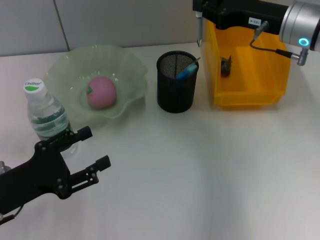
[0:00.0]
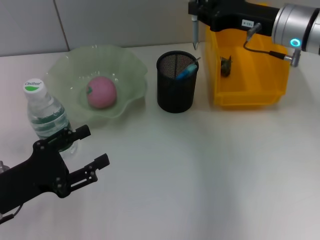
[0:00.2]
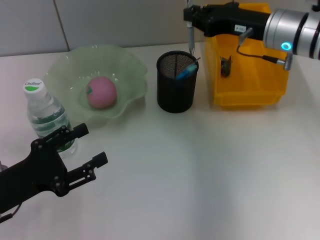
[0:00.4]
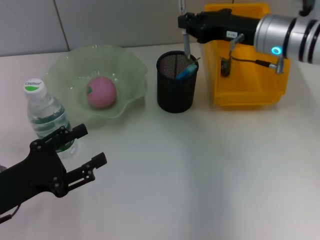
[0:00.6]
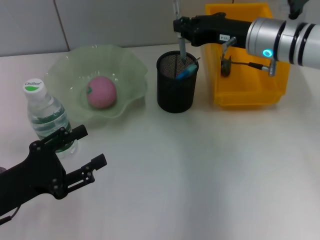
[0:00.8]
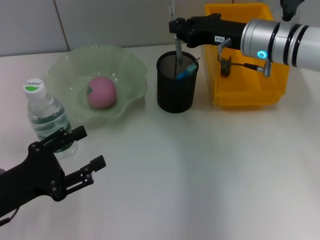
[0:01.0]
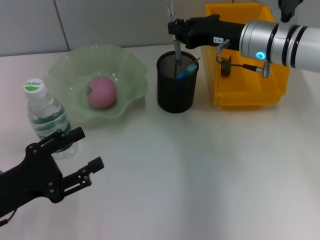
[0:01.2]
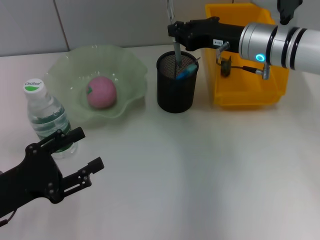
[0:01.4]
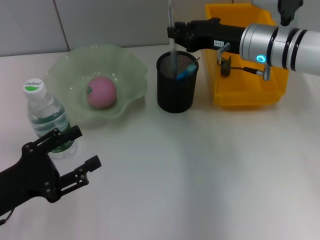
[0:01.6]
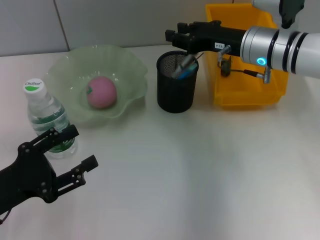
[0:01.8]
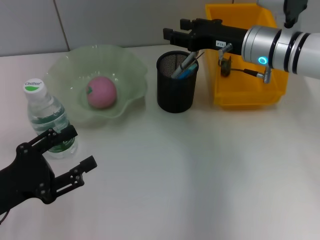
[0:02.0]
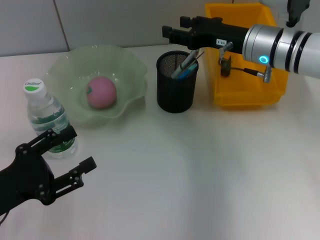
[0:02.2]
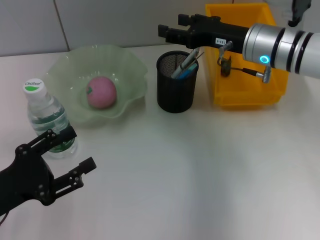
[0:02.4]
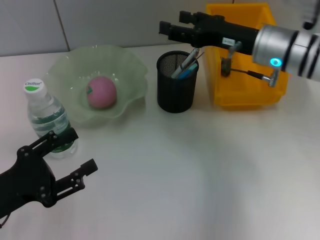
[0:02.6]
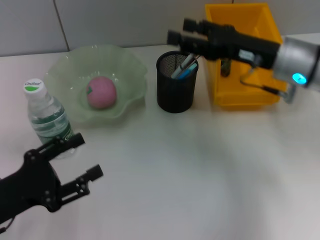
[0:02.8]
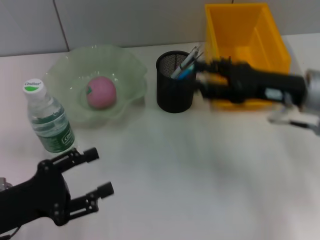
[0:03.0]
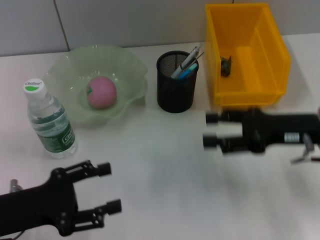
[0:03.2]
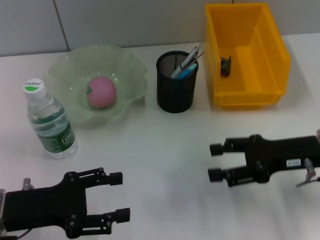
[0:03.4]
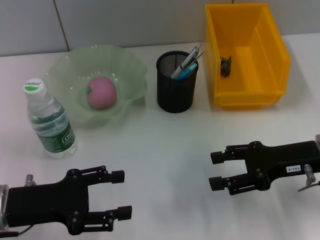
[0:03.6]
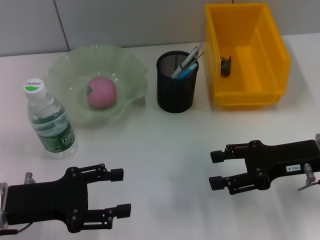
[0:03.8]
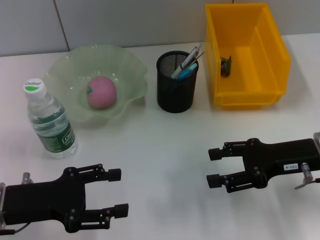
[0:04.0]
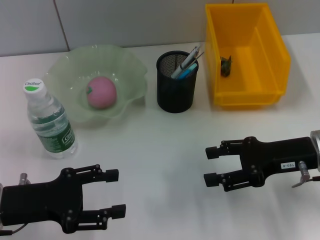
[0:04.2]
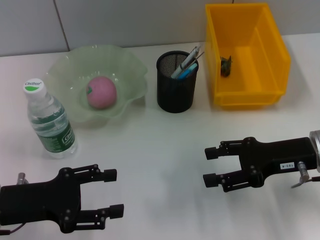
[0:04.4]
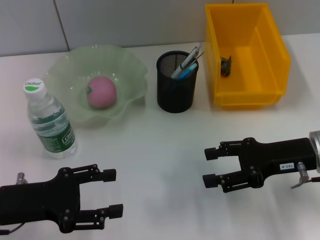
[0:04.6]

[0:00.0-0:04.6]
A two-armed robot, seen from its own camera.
0.0 to 1.6 s: The right gripper moves approximately 5 cm.
1.6 to 3.0 s: The right gripper heads backward and to the right, covering approximately 10 cm, and opens its fingers.
3.0 to 4.6 s: The right gripper shifts by roughly 5 cm.

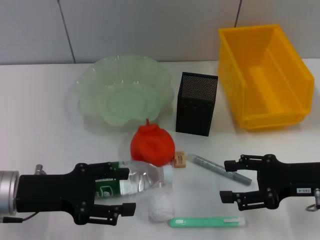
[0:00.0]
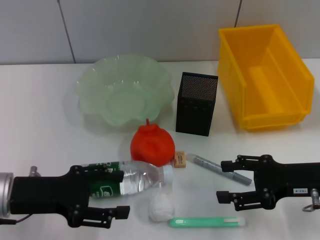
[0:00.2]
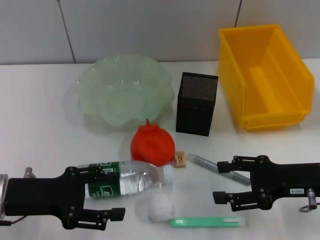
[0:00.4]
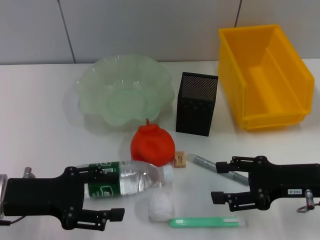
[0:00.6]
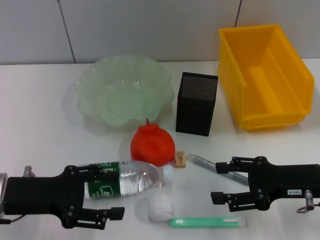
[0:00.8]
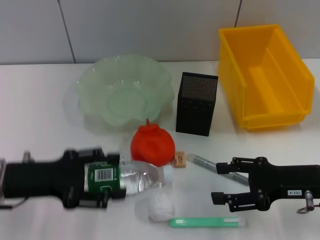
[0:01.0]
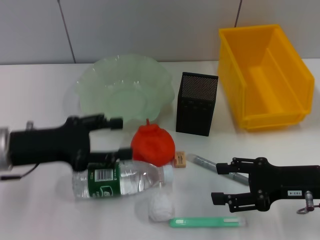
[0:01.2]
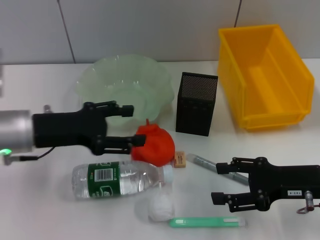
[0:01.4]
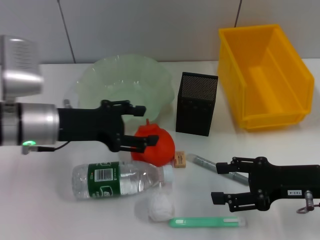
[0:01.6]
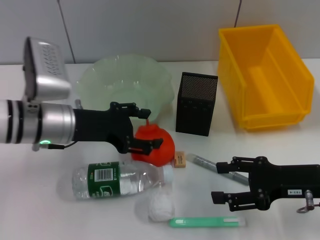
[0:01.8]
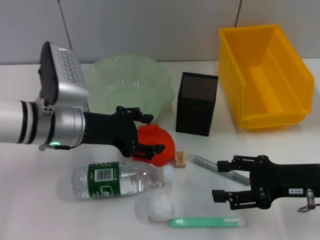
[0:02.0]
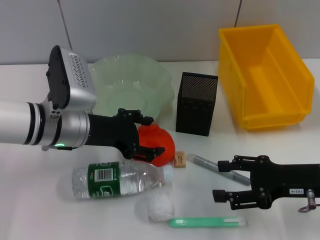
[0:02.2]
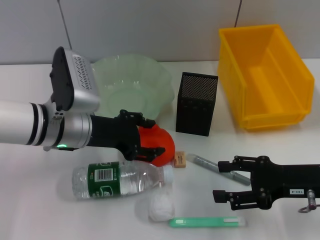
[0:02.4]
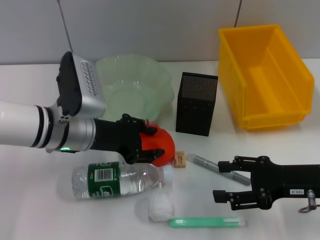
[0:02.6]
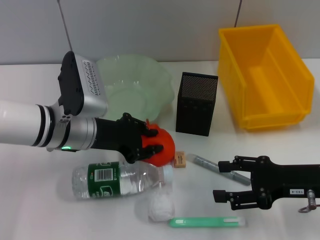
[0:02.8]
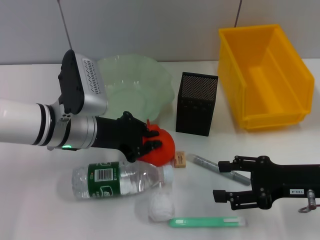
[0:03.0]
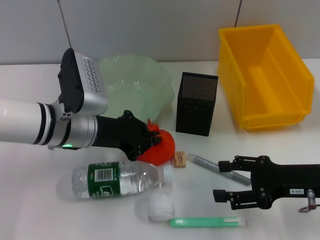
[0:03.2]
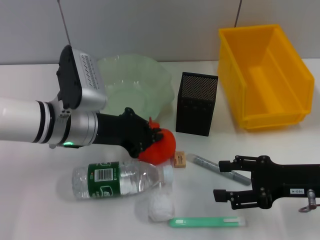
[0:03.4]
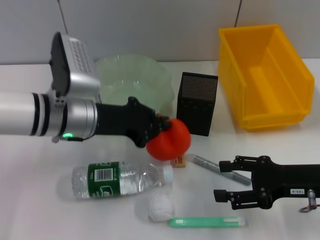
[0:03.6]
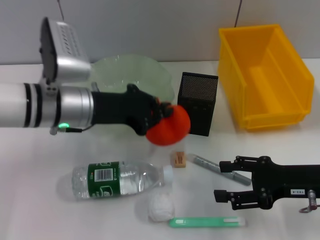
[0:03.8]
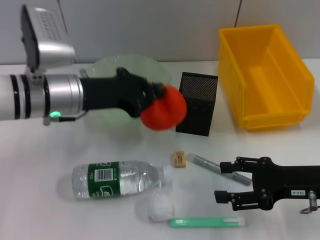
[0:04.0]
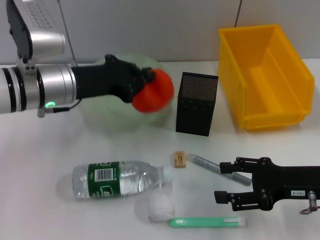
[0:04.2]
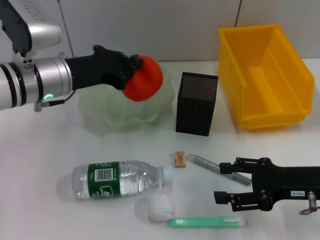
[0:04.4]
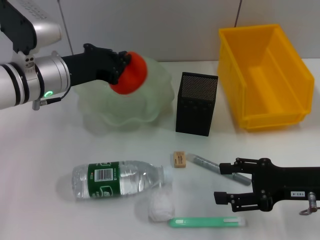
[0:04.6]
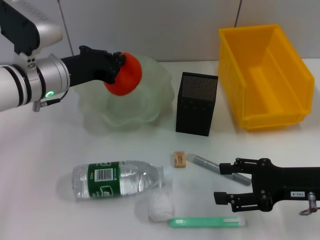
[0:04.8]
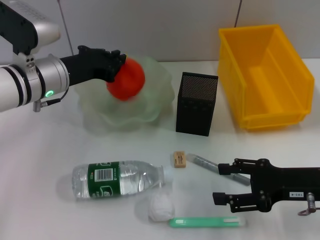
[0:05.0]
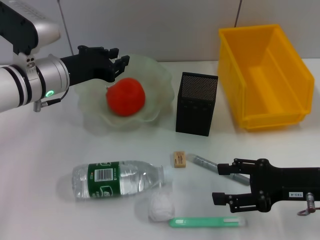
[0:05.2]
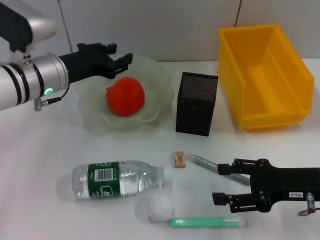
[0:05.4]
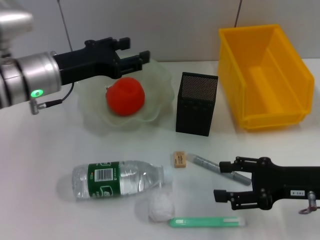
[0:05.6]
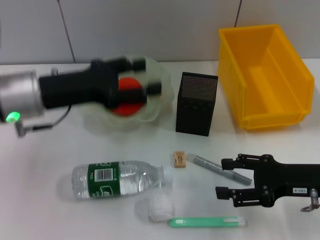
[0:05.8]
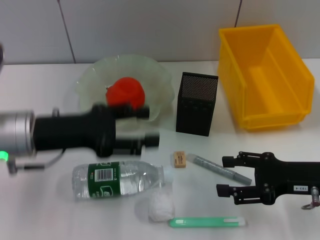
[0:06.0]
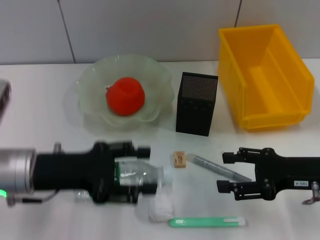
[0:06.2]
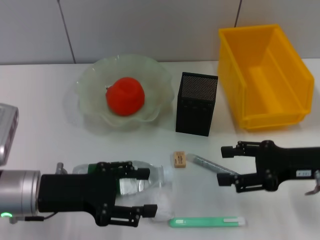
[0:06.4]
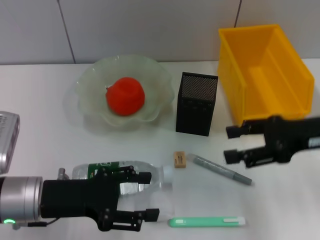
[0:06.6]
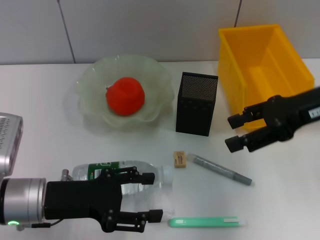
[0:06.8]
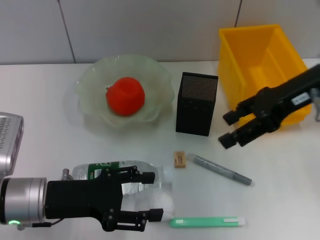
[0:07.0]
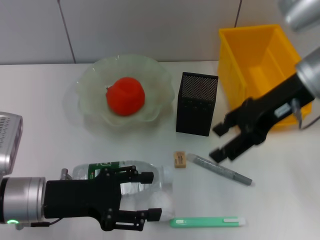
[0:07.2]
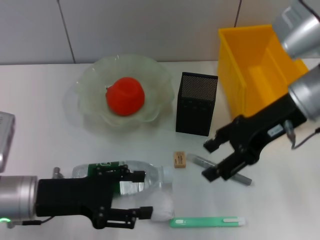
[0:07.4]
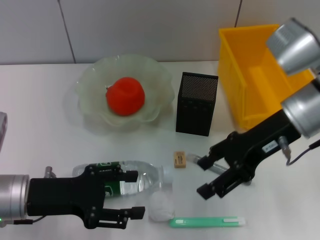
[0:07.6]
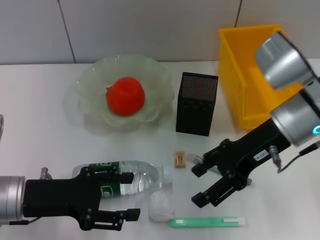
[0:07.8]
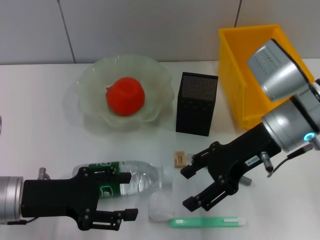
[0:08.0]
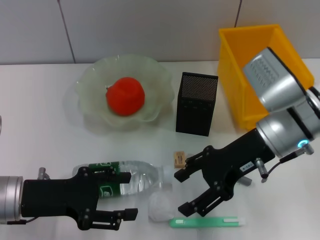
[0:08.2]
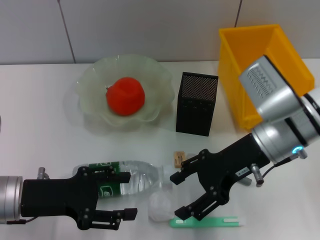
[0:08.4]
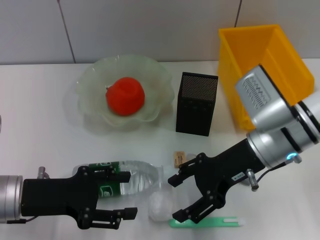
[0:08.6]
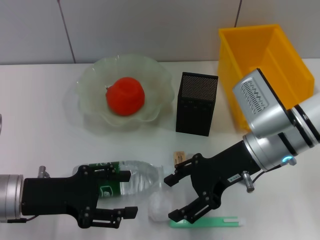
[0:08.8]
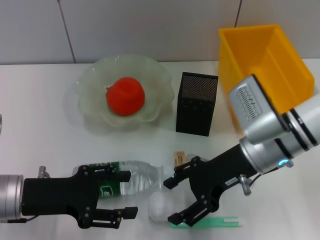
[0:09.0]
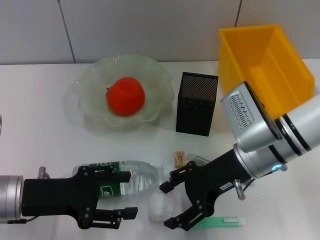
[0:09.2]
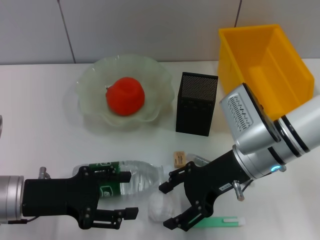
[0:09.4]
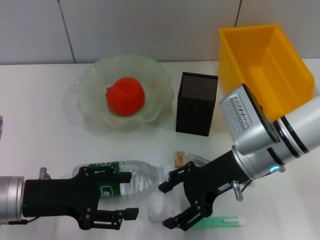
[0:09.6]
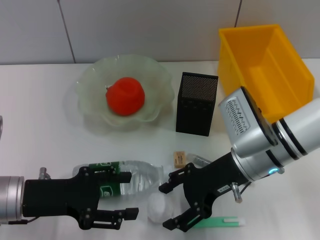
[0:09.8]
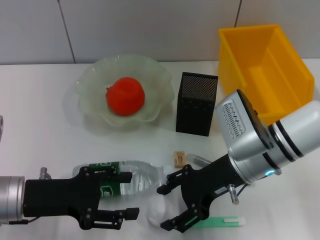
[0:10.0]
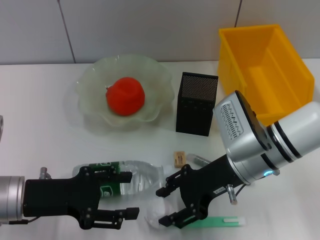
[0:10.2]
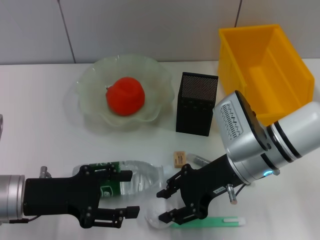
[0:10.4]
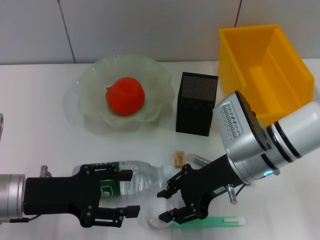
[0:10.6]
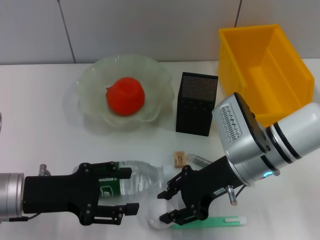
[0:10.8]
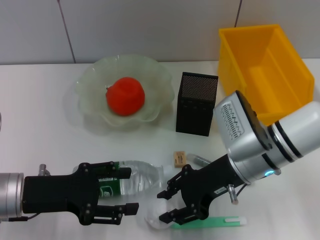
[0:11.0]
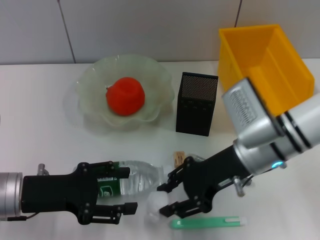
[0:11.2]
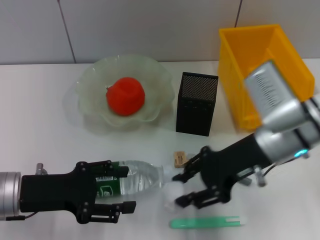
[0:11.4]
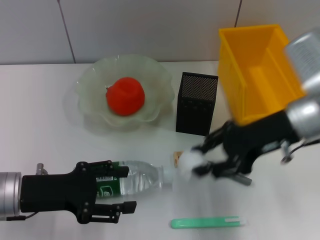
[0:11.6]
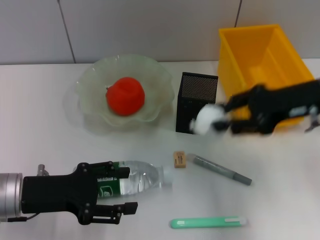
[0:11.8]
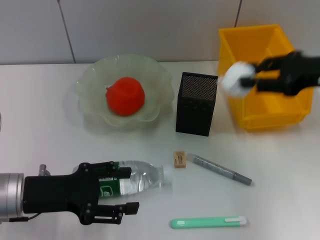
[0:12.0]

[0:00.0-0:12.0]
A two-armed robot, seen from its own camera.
Step, 0.0 to 3.0 s: Grab the orange with the left hand.
Step, 3.2 to 5.0 s: Place the orange into the fruit bowl with the left hand.
Step, 5.2 to 10.8 s: Grab the paper ball with the right hand.
0.0 to 1.6 s: The left gripper moves forward, some 10 cm.
1.6 to 3.0 s: The left gripper ends up approximately 5 cm from where it was, and closes its fingers.
3.0 to 4.4 s: The left gripper ends up roughly 5 cm from where it was, and closes.
4.4 to 6.0 s: The left gripper heads backward, covering roughly 10 cm, and opens its fingers.
6.0 to 7.6 s: The left gripper goes roughly 5 cm downward. Meanwhile the right gripper shifts roughly 15 cm upward, to the left and forward.
7.6 to 9.0 s: The right gripper moves downward, roughly 5 cm.
9.0 to 10.4 s: The grippers move only a little.
10.4 to 12.0 s: The right gripper shifts approximately 20 cm to the right and upward.

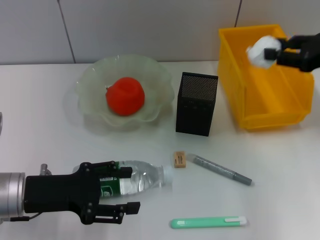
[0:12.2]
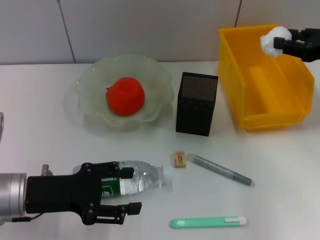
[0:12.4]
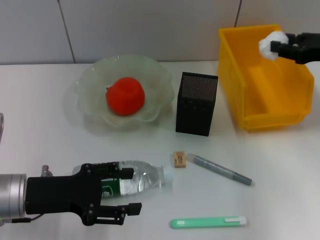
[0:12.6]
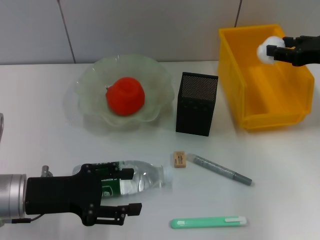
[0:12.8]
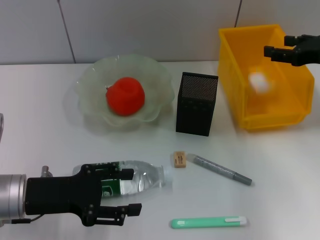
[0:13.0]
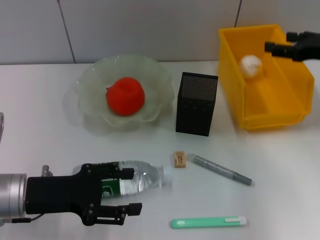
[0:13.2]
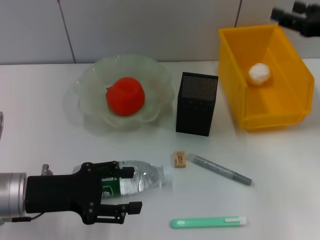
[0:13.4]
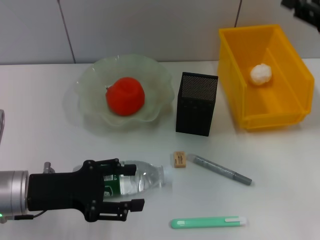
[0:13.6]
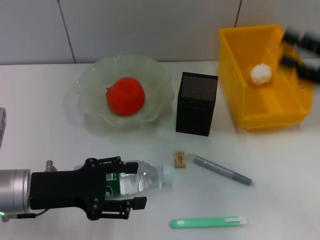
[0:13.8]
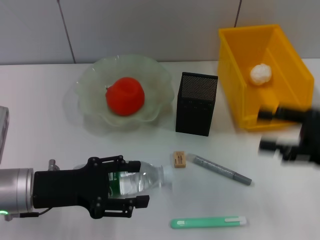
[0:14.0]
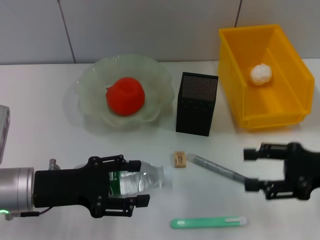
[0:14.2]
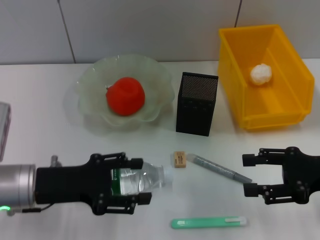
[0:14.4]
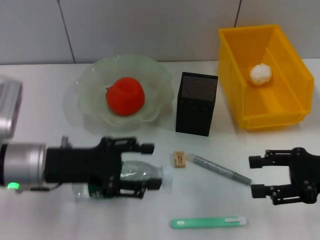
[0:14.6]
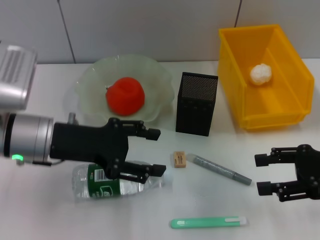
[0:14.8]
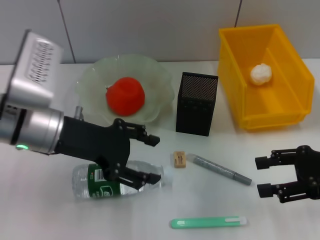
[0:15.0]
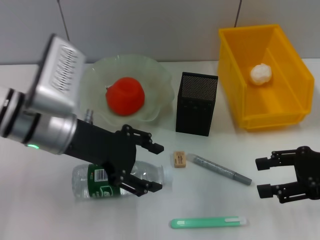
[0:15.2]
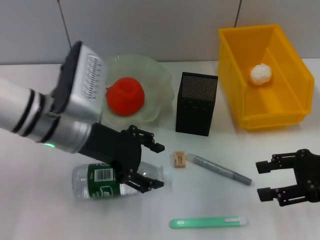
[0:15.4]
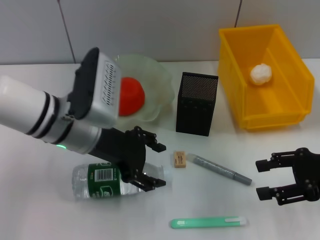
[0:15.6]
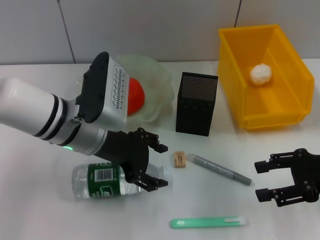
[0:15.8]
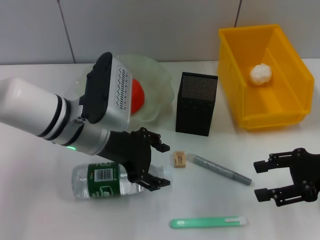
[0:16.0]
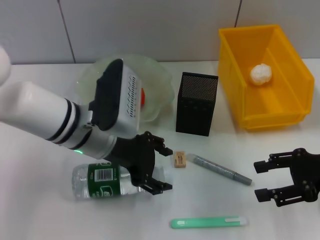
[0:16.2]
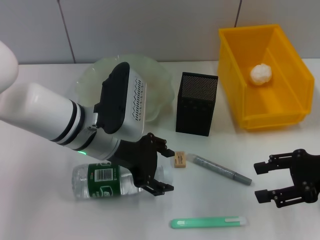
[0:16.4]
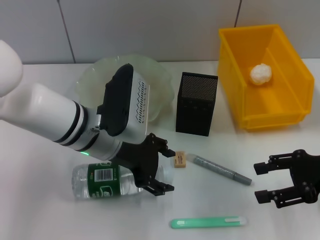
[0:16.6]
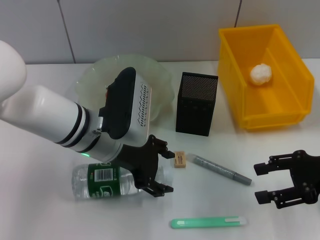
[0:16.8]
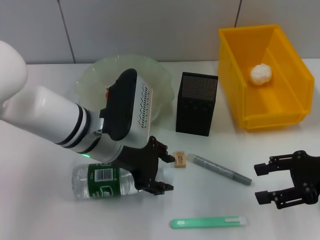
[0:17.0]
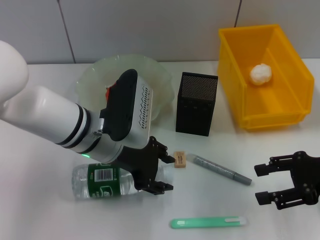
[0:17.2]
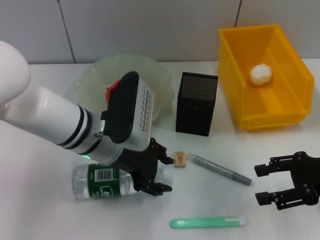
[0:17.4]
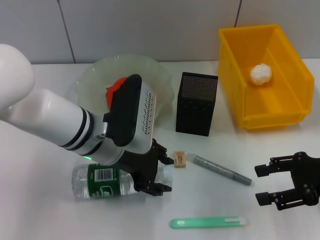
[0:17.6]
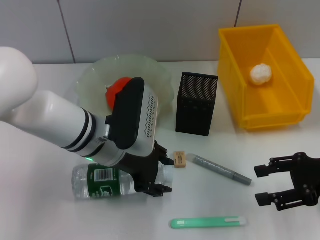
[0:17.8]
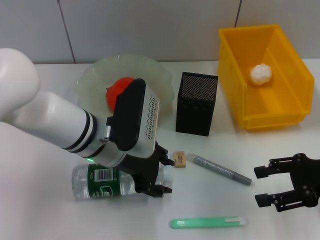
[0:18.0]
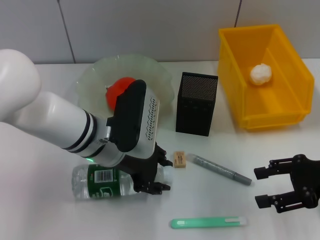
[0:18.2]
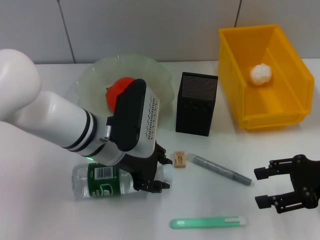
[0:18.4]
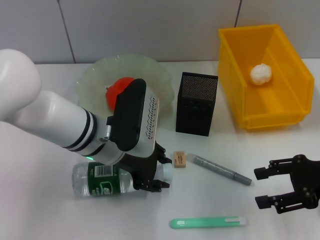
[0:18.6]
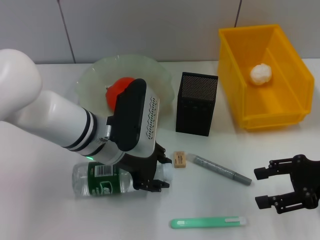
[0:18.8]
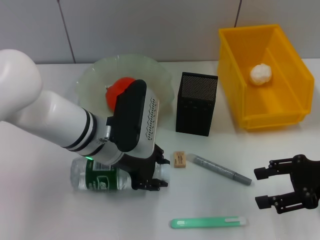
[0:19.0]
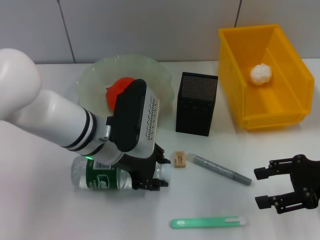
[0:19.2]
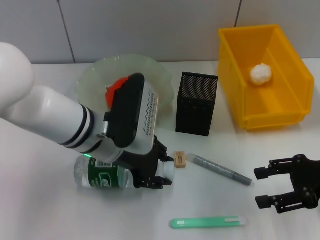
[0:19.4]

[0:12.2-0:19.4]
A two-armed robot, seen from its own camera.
Step, 12.2 to 13.4 s: Place the paper ball into the trash can with the right hand.
Step, 13.6 to 18.8 s: Grab the water bottle with the left hand.
12.2 to 13.6 s: The right gripper opens its fingers.
13.6 to 15.0 s: The right gripper goes approximately 10 cm downward and backward. The left gripper is displaced upward, forward and to the right by roughly 10 cm.
15.0 to 16.6 s: The left gripper moves to the right, roughly 5 cm.
16.6 to 18.0 s: There are only small adjustments of the grippers.
18.0 to 19.4 s: Both grippers stay about where they are.
